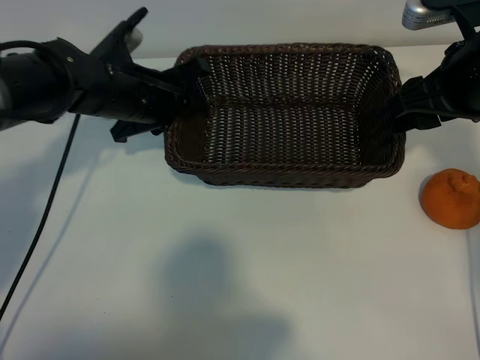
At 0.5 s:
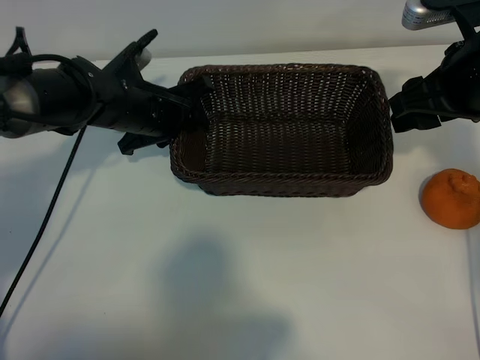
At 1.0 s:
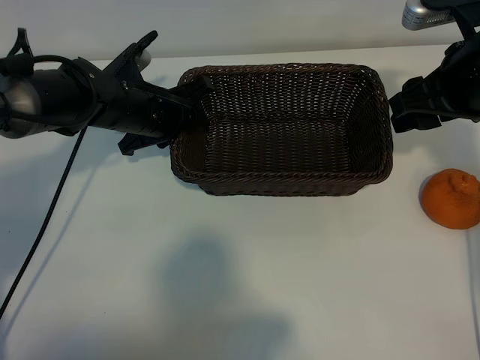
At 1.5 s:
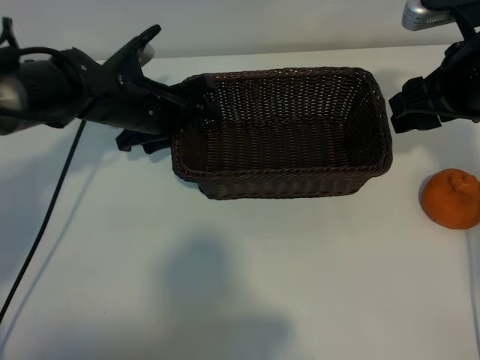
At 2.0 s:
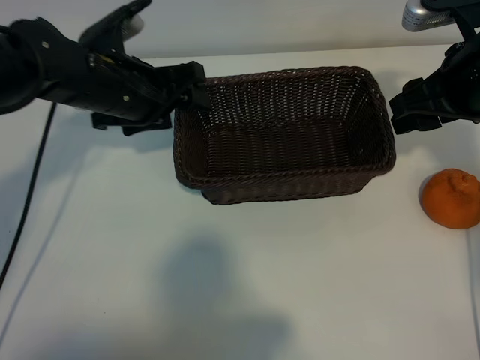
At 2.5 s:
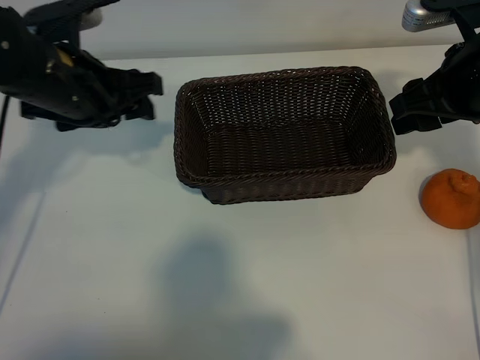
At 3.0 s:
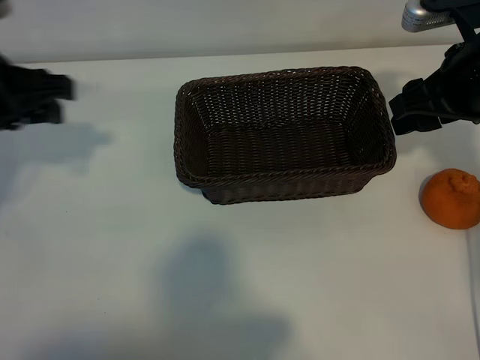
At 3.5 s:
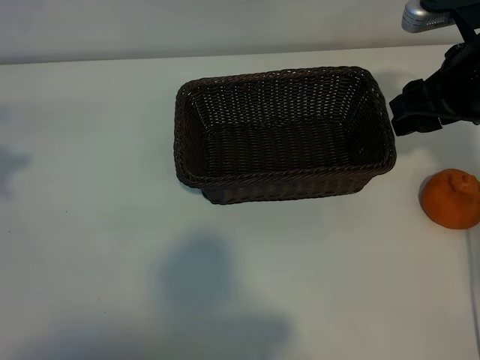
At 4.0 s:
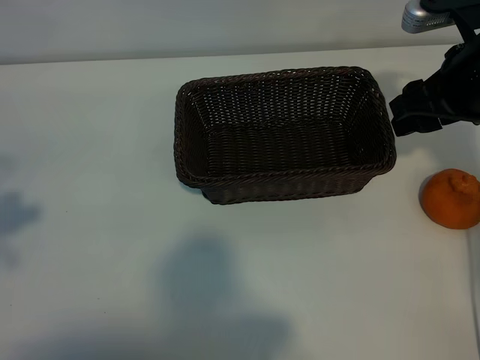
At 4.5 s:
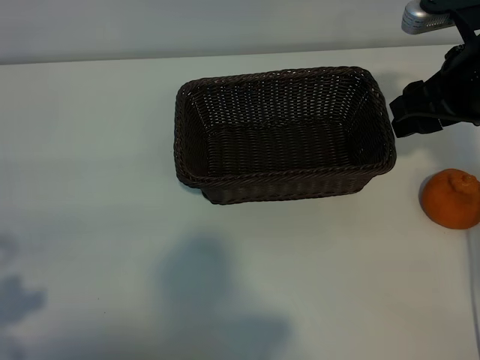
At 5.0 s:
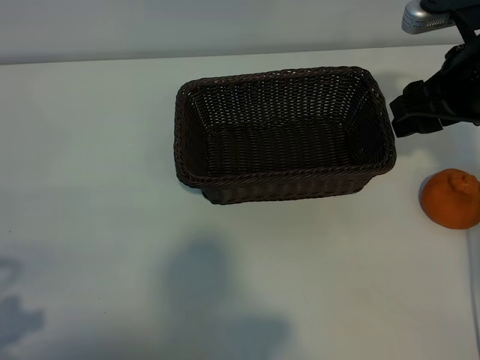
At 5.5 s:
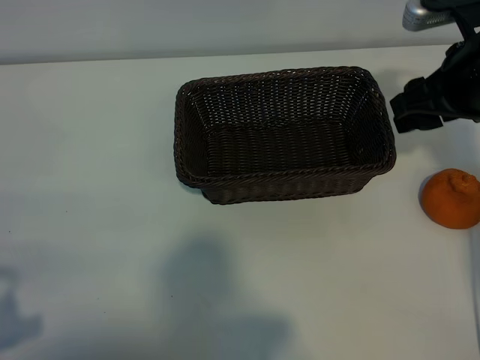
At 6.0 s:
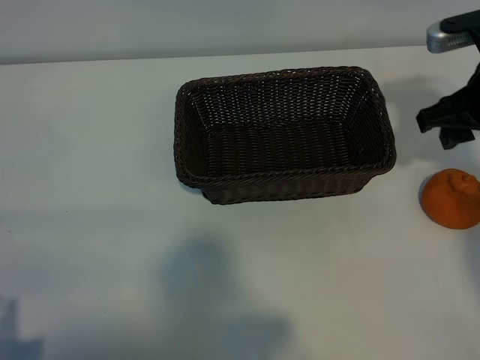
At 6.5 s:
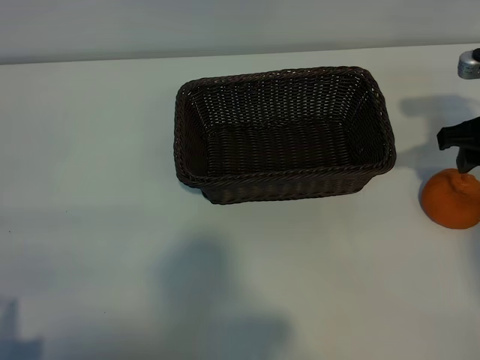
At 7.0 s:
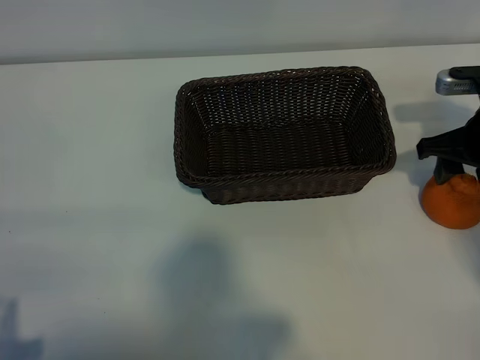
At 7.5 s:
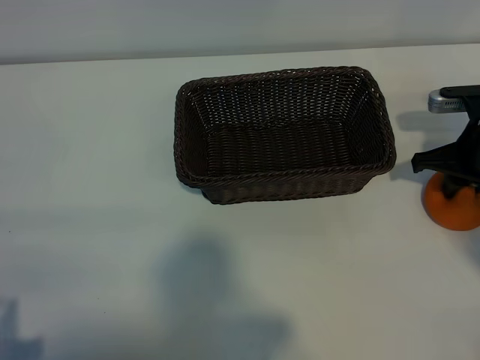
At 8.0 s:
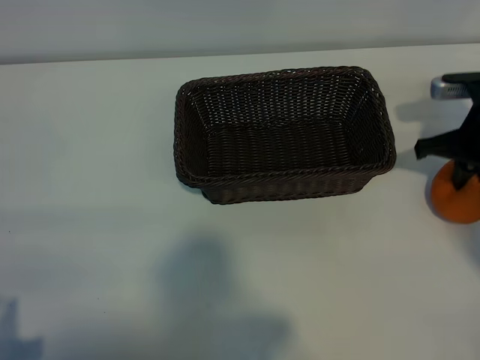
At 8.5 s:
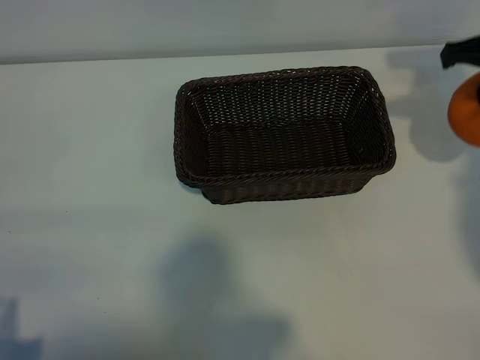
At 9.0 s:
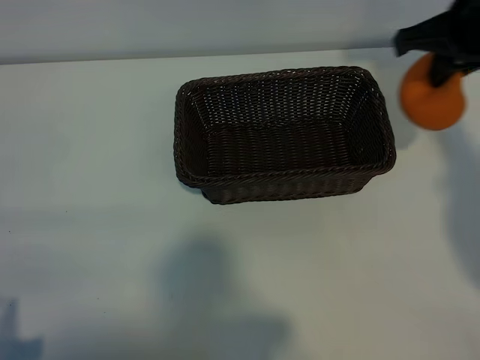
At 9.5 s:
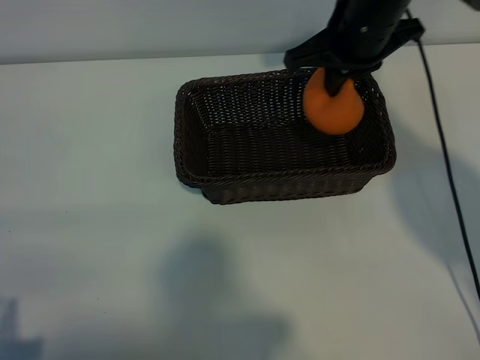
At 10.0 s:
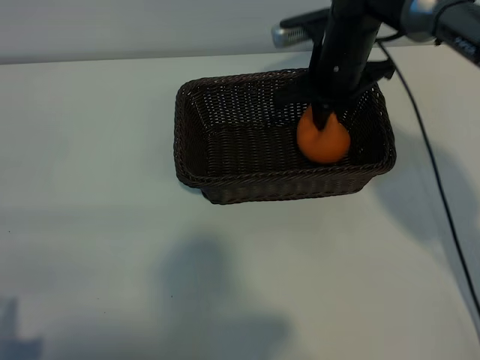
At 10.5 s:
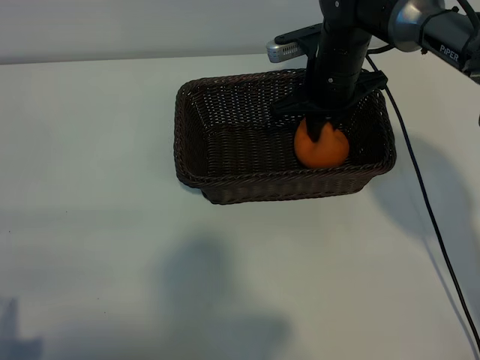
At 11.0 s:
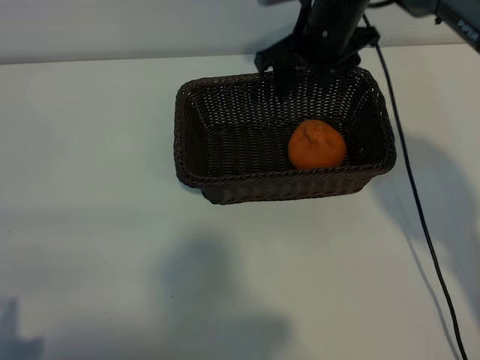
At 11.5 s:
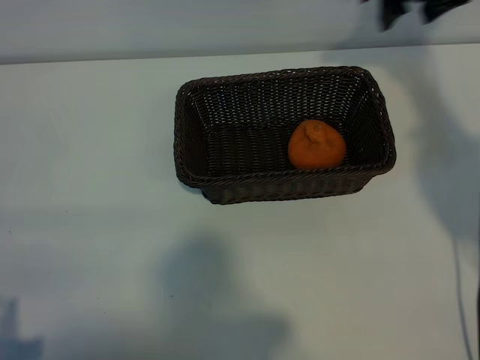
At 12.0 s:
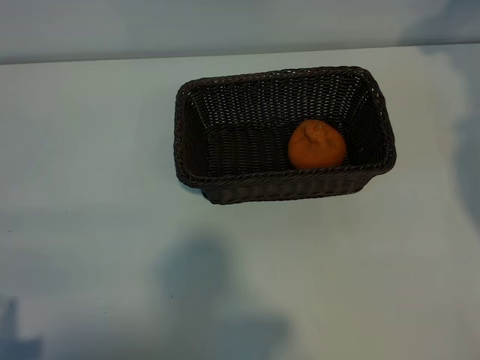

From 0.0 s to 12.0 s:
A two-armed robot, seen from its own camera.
Task of the whole recording: pick up the orange and put it into the basket.
Step, from 2.5 s to 7.5 s: Grasp the orange with right gripper.
Step, from 8.0 s to 10.5 s: Place the orange in the basket with right gripper.
